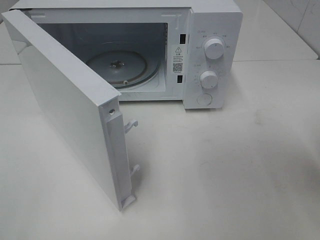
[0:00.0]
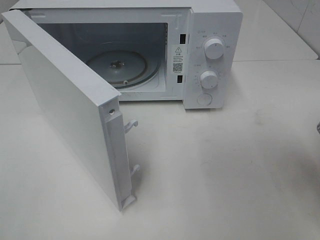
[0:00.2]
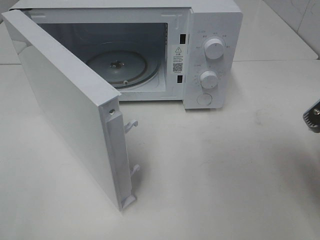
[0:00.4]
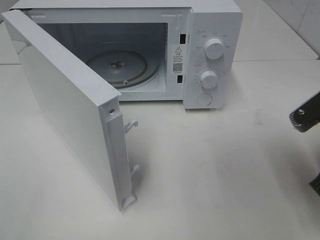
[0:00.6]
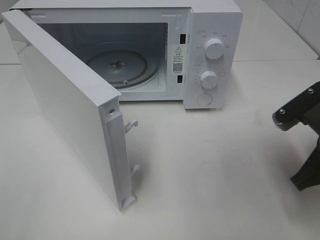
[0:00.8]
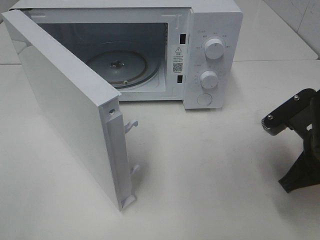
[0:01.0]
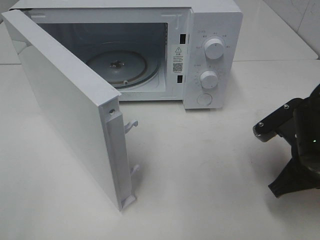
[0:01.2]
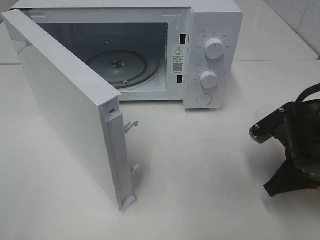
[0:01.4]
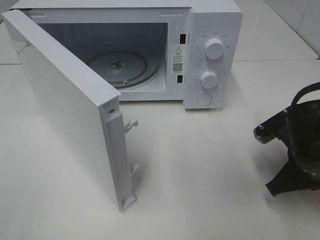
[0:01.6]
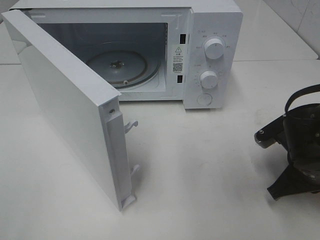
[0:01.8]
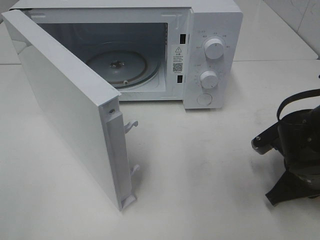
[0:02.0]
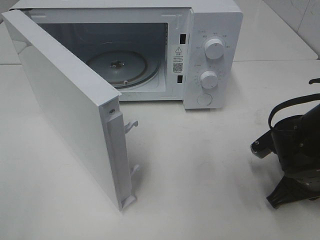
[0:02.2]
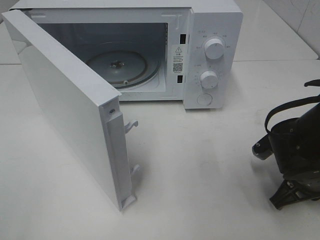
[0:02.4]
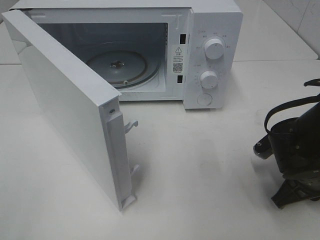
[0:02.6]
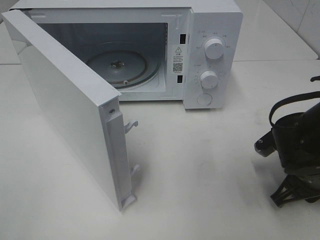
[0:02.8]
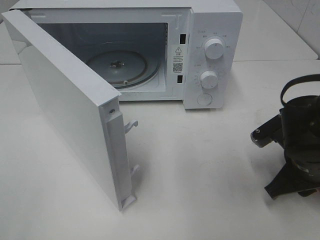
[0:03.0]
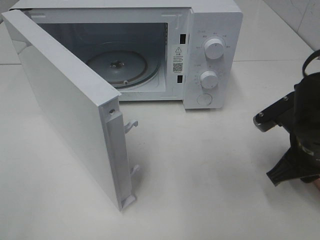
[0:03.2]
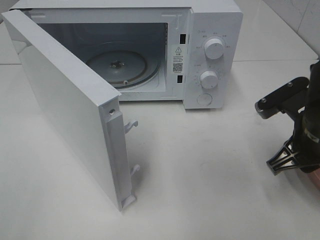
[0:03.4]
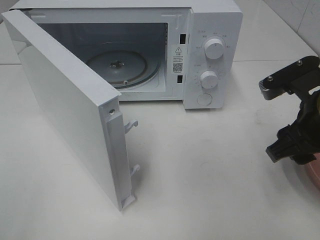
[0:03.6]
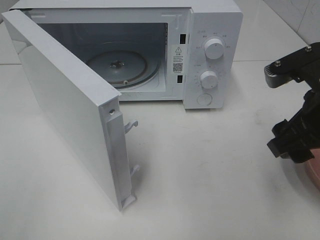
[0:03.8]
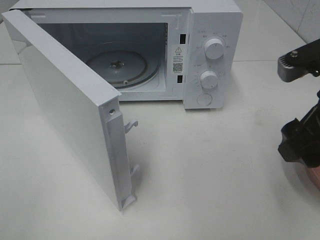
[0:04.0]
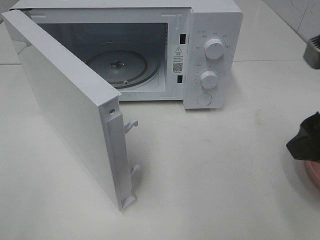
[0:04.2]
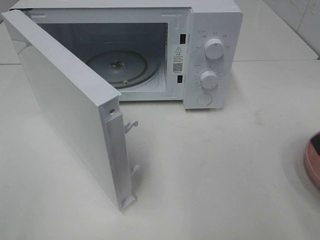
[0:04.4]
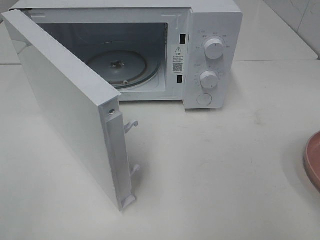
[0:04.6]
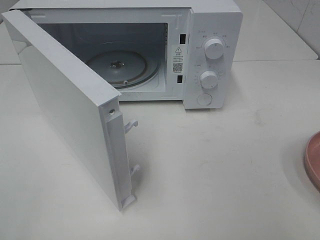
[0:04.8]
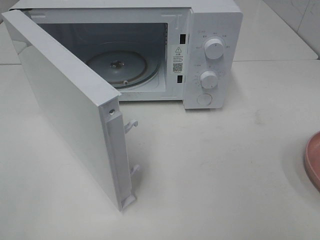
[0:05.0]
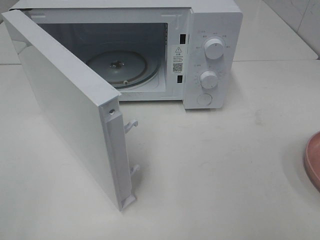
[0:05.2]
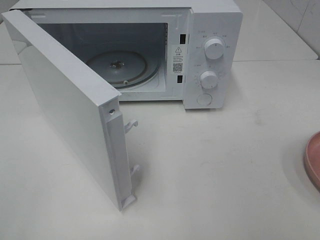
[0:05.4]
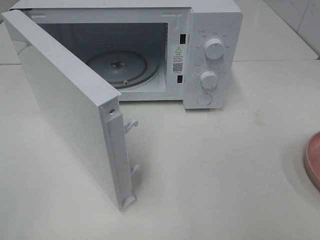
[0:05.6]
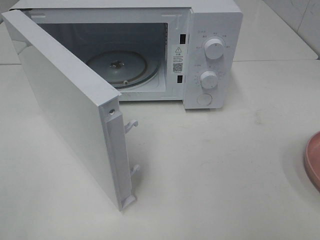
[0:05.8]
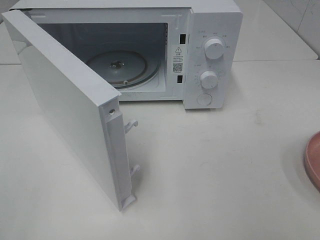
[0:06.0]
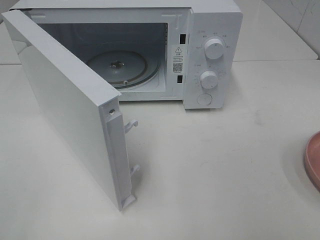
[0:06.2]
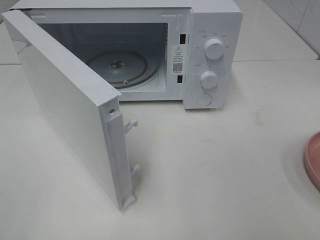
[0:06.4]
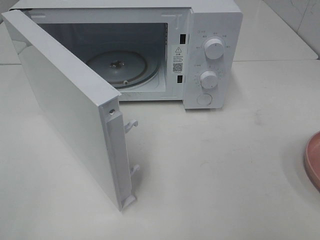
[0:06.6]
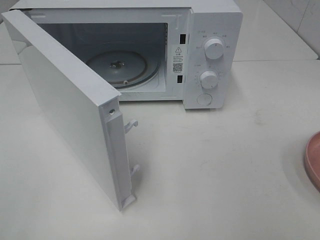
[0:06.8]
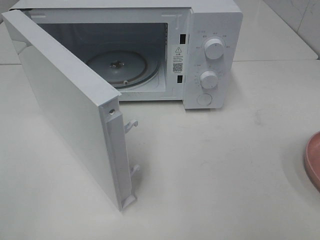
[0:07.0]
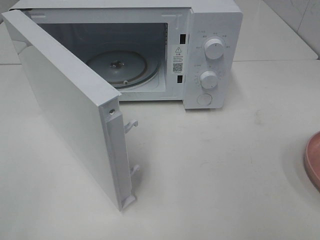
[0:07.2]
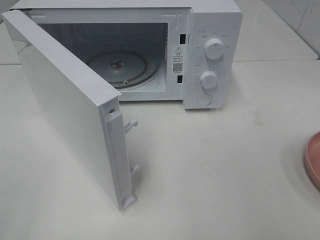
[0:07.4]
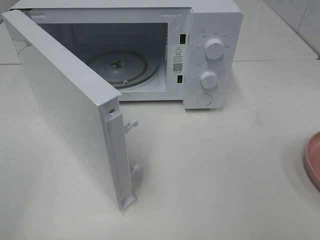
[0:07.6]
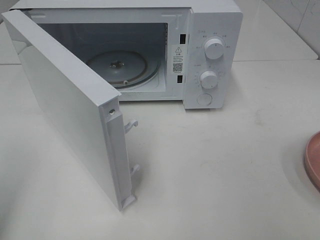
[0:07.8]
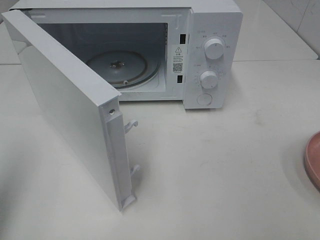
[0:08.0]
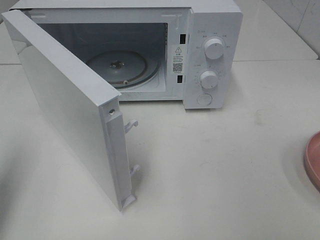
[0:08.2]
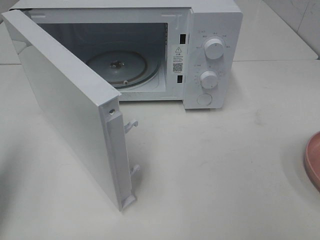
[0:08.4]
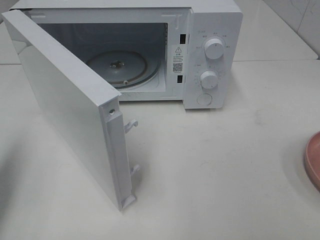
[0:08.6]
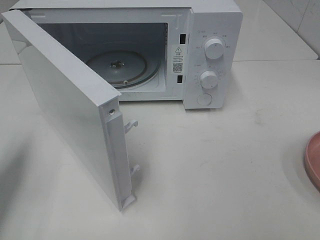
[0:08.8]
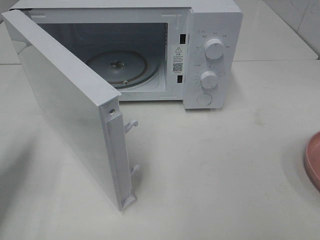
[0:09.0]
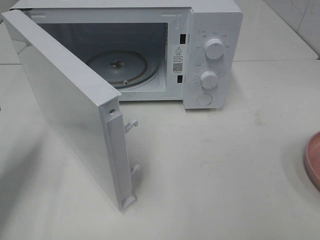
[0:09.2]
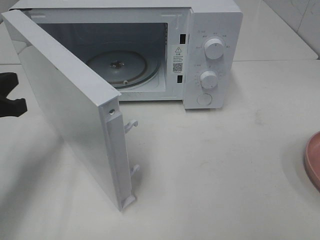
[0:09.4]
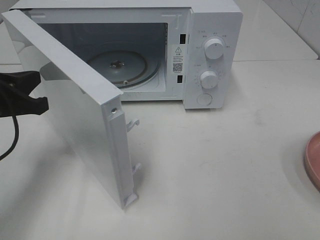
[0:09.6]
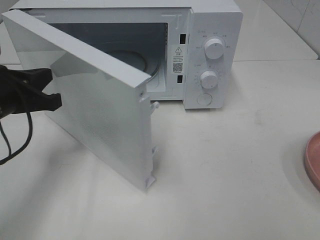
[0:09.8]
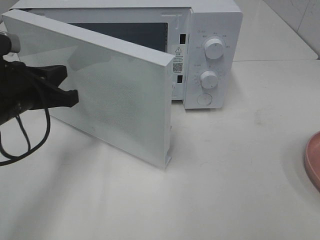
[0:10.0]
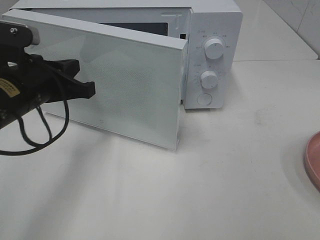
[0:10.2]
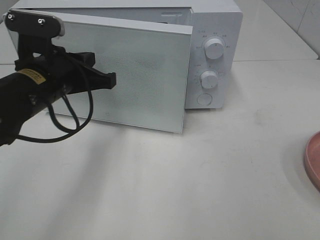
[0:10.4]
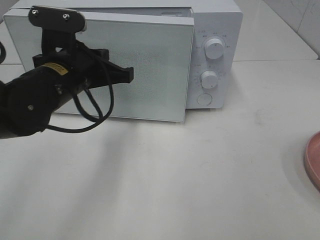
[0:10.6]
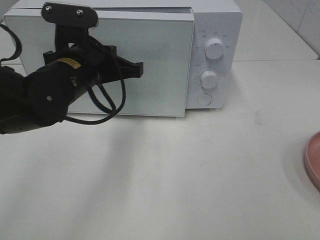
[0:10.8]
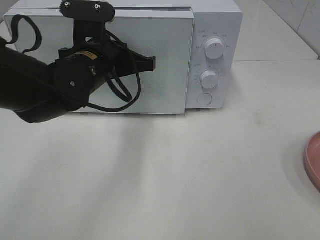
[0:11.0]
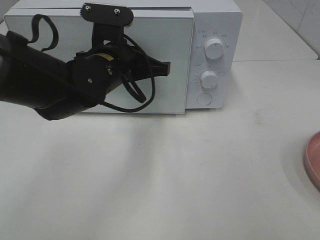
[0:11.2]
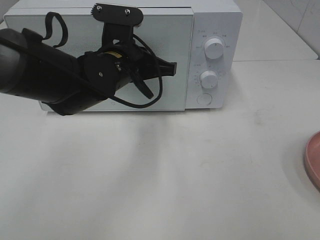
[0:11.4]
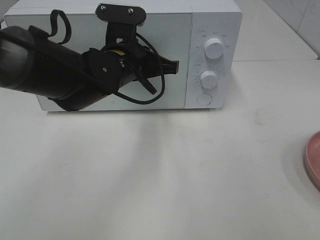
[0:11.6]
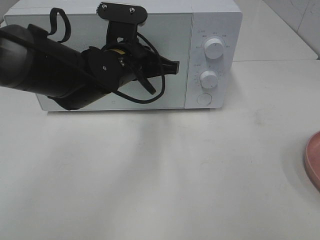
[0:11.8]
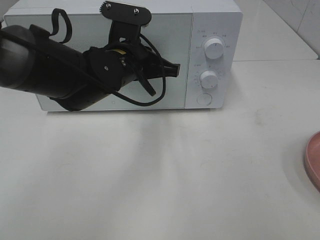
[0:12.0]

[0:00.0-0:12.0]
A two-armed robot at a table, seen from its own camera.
Task of the whole recording: Heat the burger.
Step, 0:00.0 to 0:03.2: Right hand: place the plate on the table.
0:00.0 to 0:01.6: The right gripper shifts some 15 cm downward and forward.
0:01.6 to 0:03.0: The right gripper opens its fingers.
0:03.0 to 0:04.4: The right gripper is displaced upward and backward by approximately 20 cm.
0:07.6 to 0:09.0: The left gripper is displaced forward and downward by approximately 20 cm, and closes its fingers.
0:09.0 to 0:10.4: The left gripper is displaced to the right and forward by roughly 20 cm.
0:10.4 to 0:12.0: The left gripper is displaced to the right and forward by approximately 10 cm.

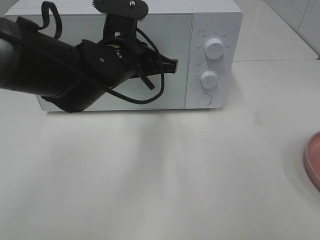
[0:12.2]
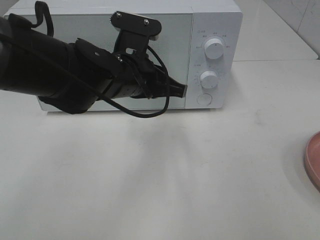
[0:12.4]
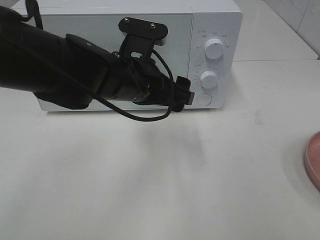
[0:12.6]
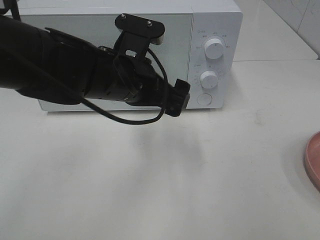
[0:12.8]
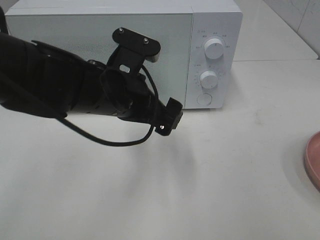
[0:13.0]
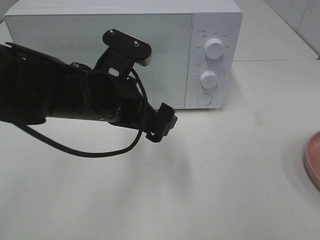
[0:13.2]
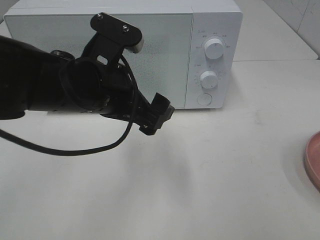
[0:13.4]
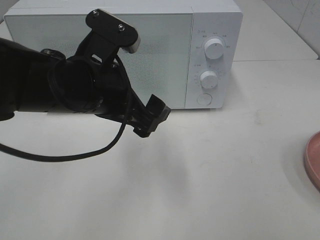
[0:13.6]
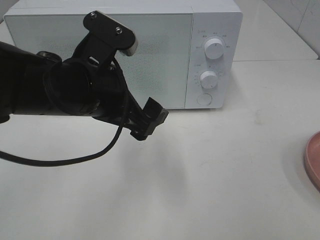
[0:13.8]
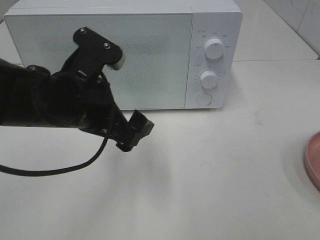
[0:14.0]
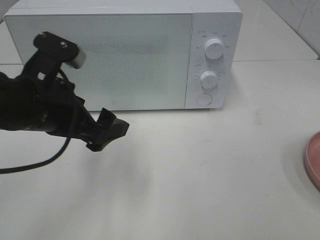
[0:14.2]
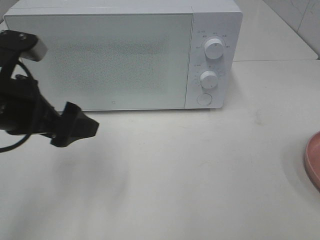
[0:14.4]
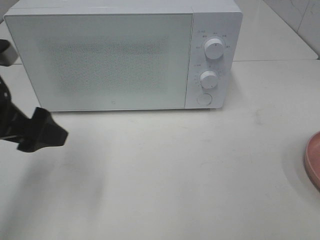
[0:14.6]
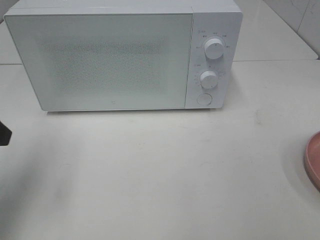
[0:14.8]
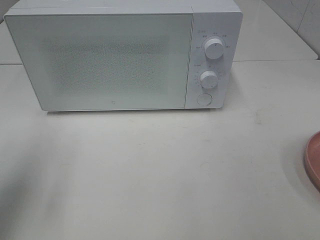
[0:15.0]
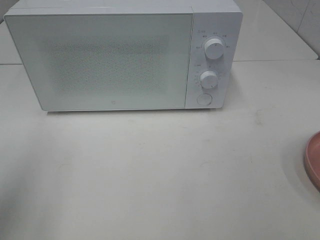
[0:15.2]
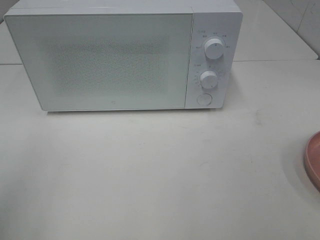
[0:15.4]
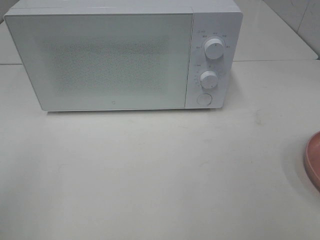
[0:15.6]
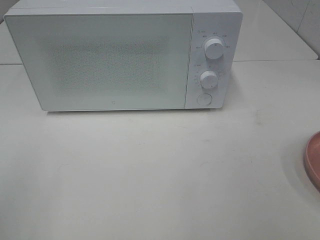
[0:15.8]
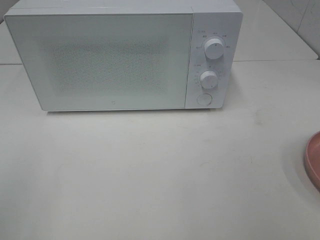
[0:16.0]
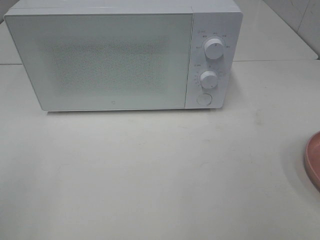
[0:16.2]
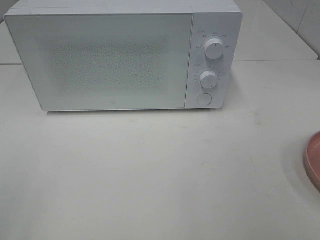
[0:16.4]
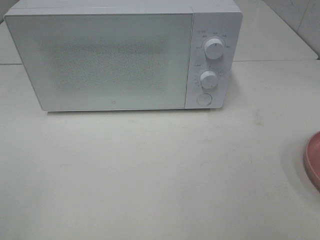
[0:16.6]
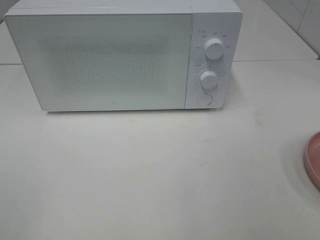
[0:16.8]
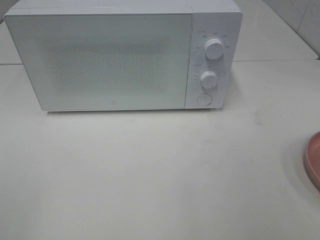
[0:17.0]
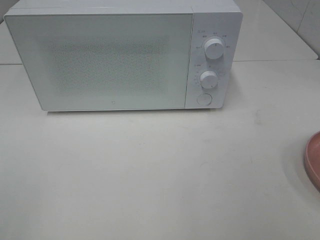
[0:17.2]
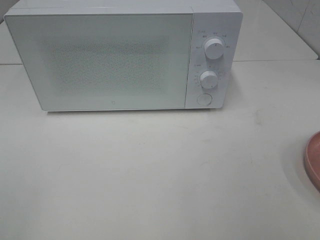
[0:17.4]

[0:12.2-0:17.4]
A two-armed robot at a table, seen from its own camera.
Task of the whole recording: Heat the burger.
0:12.2 to 0:14.0: The left gripper is displaced backward and to the left by roughly 10 cm, and opens up.
0:14.0 to 0:15.6: The left gripper heads to the left, backward and upward, covering about 25 cm.

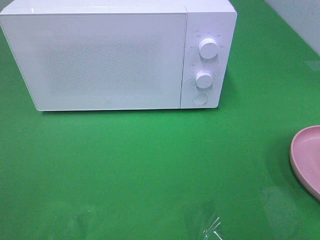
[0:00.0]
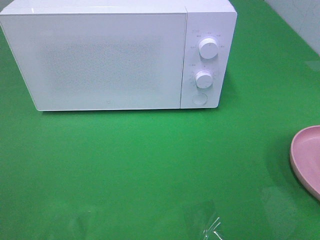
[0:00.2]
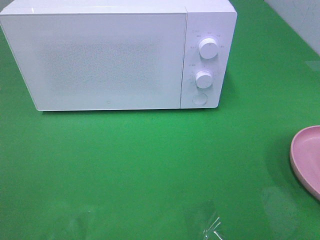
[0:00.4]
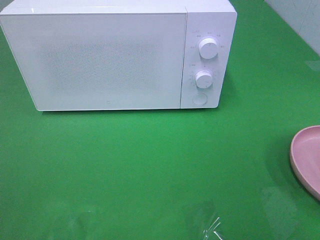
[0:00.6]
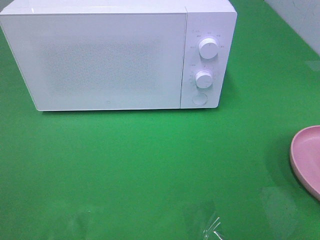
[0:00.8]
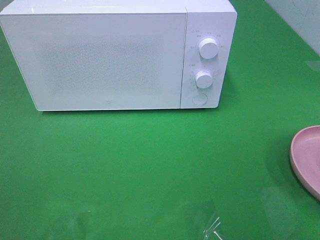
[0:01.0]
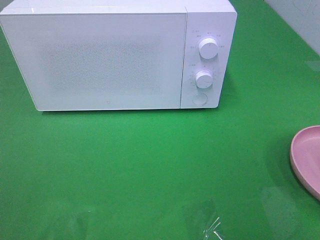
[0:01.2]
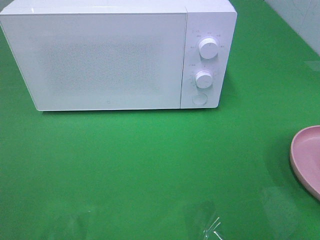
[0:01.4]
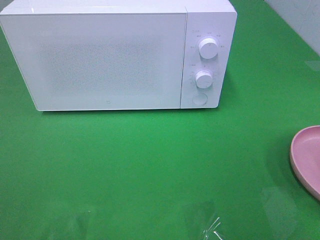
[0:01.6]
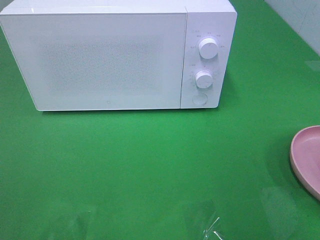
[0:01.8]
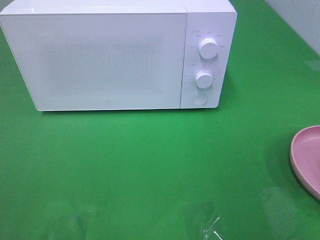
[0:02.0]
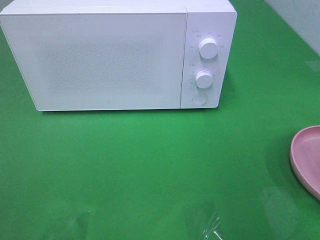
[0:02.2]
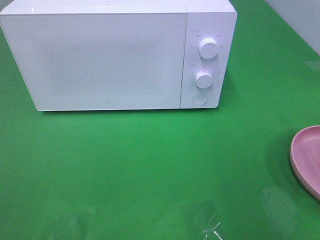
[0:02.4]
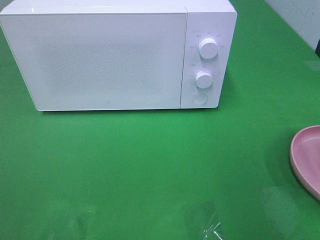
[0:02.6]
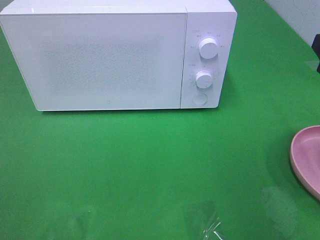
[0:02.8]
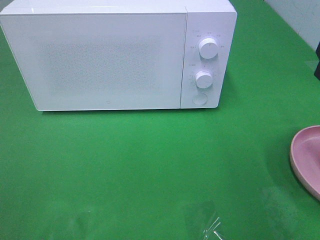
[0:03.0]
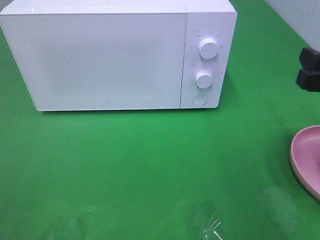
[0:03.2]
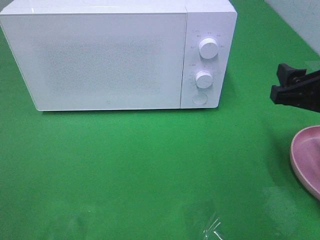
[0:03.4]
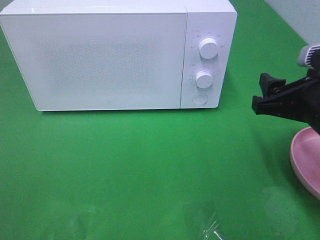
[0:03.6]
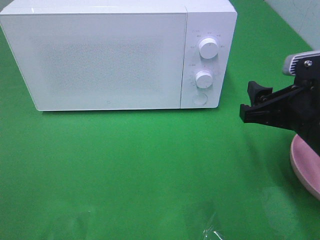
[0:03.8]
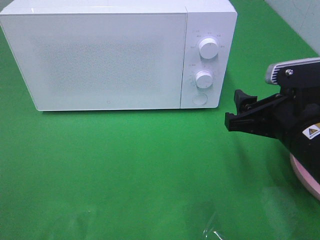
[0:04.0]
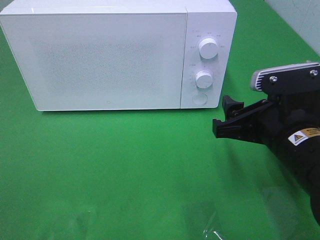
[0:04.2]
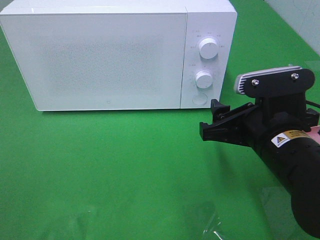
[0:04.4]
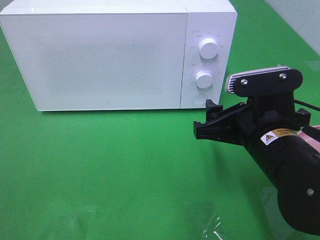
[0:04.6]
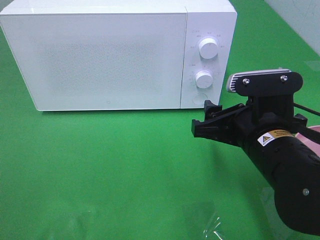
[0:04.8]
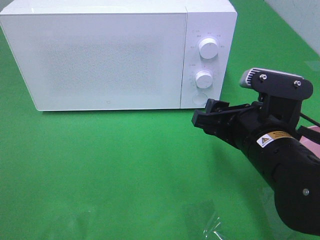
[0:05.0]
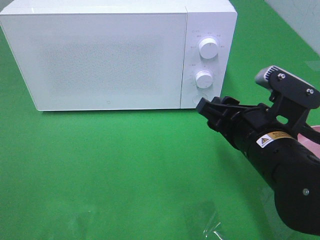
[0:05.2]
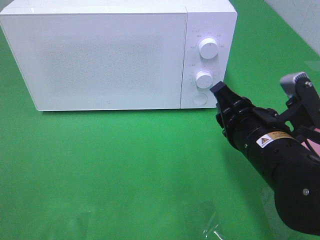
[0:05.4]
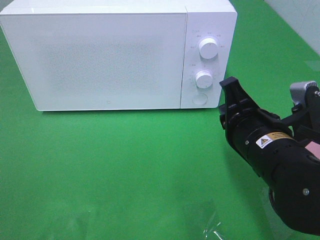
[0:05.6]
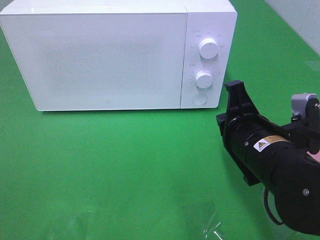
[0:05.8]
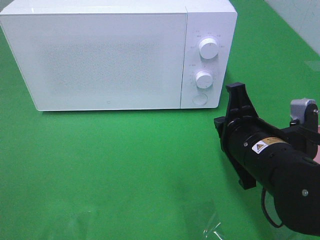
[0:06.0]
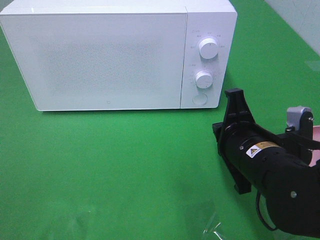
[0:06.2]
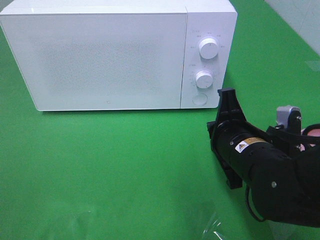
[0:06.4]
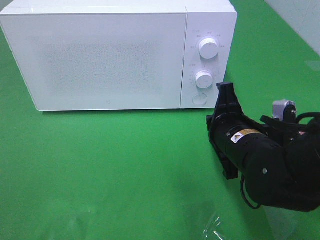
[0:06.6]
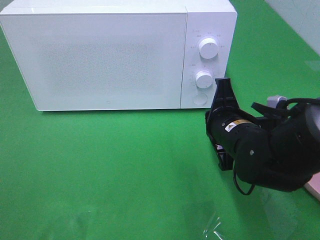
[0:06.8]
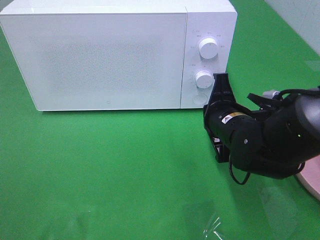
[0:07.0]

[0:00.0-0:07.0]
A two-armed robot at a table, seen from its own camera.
Task of the whole recording: Heat the burger.
0:02.8 to 0:04.2: The right gripper travels to the left and downward by approximately 15 cm.
0:04.2 to 0:05.6: The right gripper closes its fingers.
0:05.6 to 0:07.0: The right gripper travels forward by roughly 10 cm.
